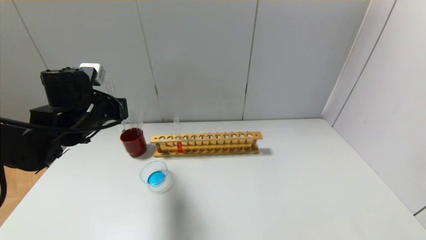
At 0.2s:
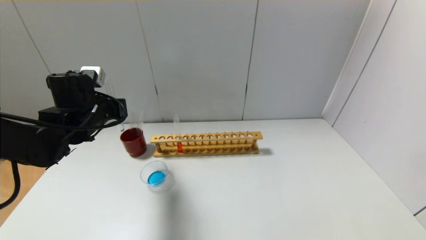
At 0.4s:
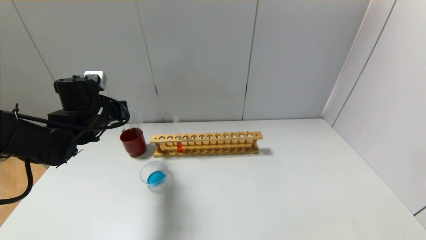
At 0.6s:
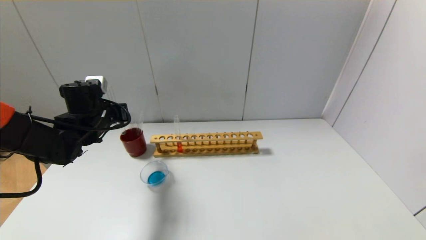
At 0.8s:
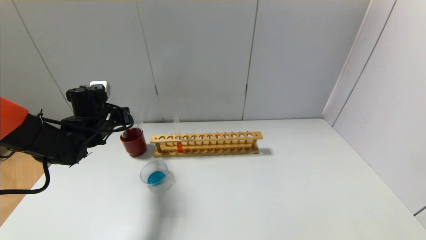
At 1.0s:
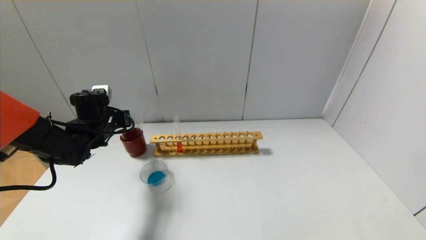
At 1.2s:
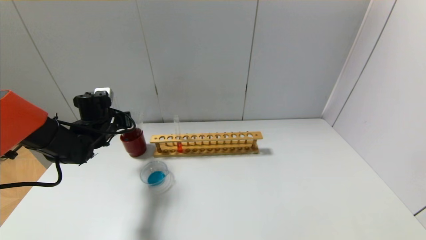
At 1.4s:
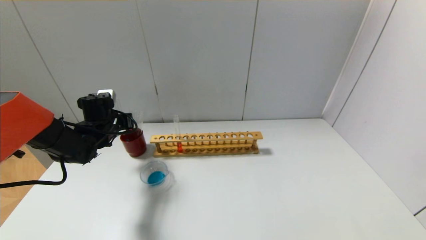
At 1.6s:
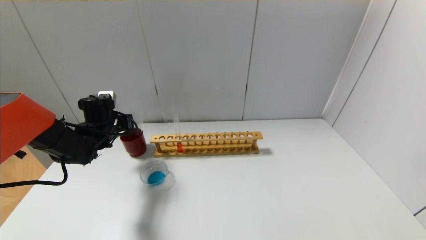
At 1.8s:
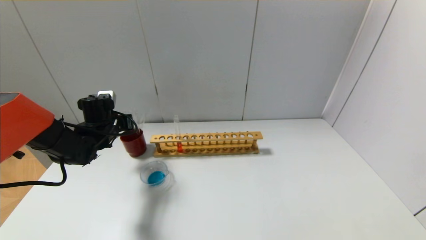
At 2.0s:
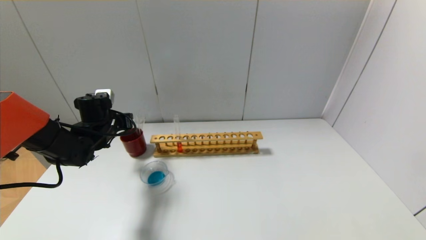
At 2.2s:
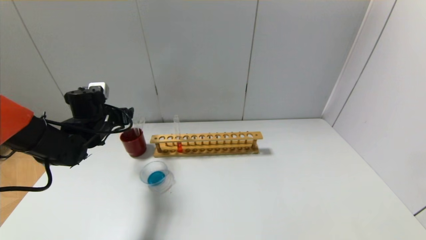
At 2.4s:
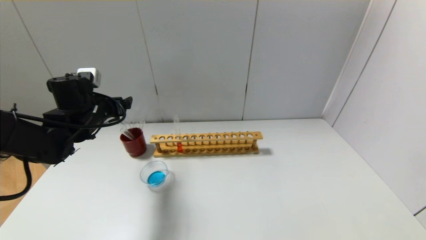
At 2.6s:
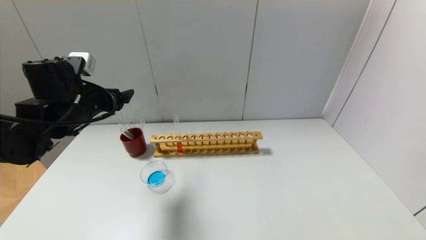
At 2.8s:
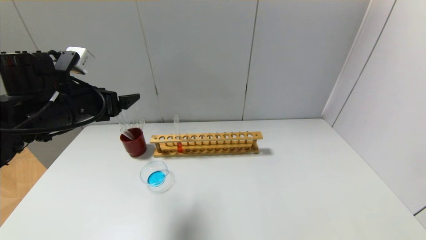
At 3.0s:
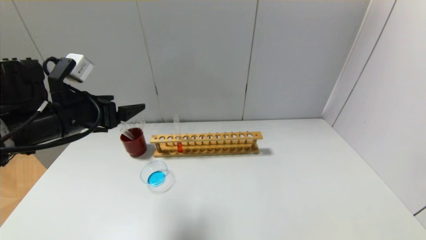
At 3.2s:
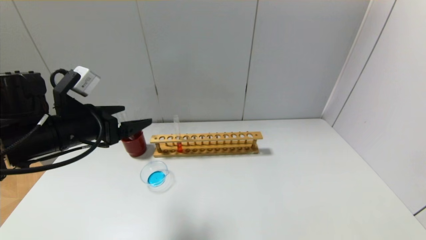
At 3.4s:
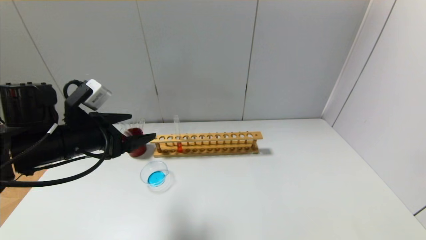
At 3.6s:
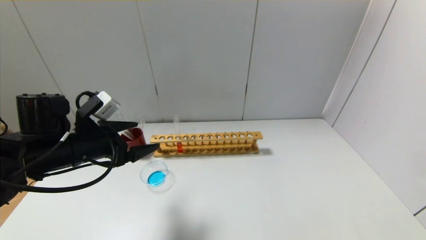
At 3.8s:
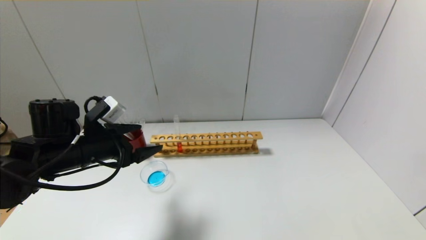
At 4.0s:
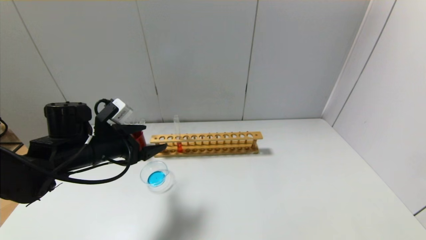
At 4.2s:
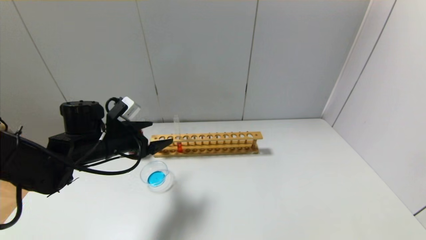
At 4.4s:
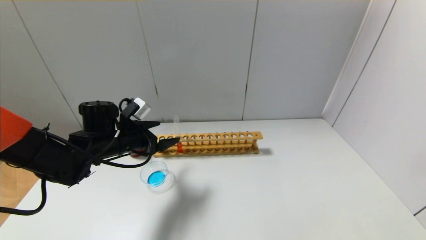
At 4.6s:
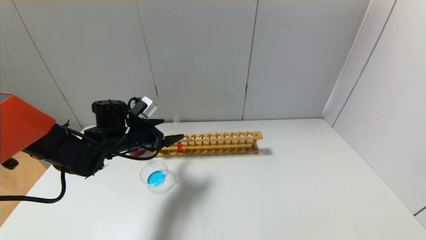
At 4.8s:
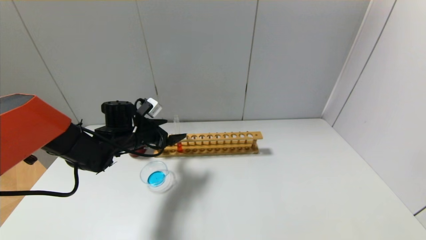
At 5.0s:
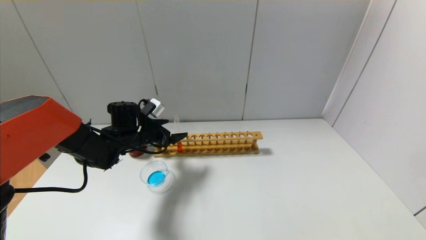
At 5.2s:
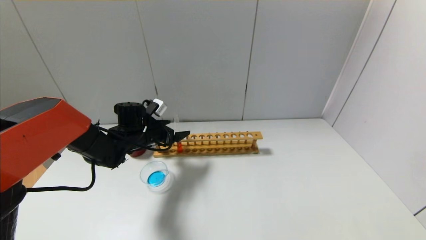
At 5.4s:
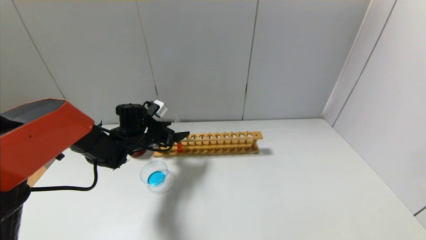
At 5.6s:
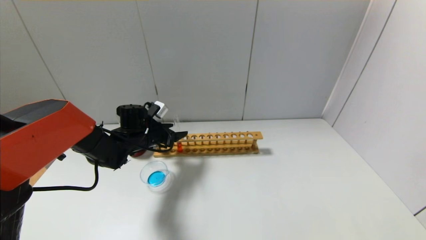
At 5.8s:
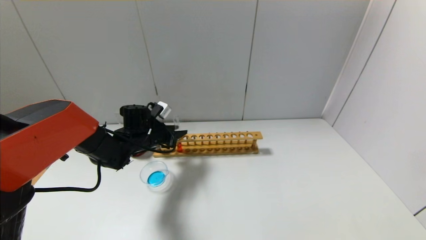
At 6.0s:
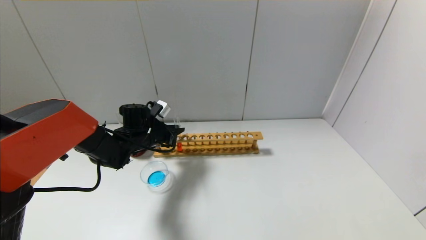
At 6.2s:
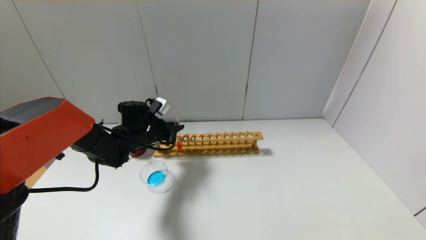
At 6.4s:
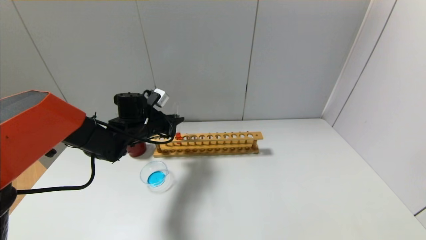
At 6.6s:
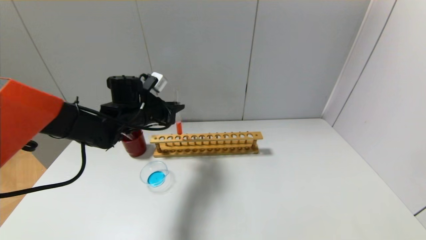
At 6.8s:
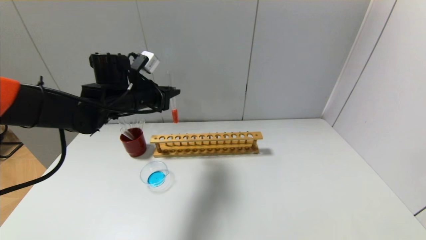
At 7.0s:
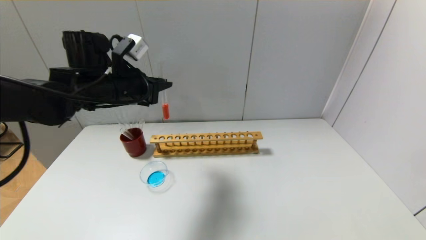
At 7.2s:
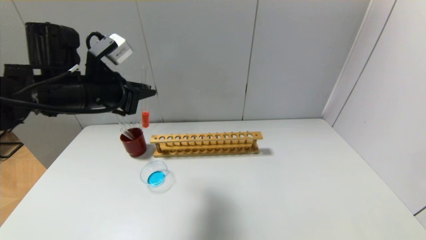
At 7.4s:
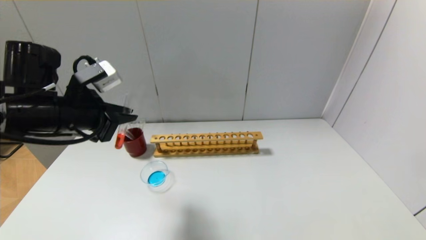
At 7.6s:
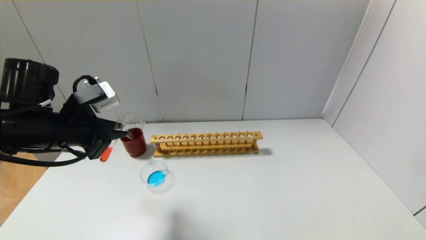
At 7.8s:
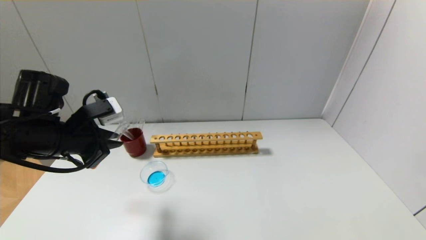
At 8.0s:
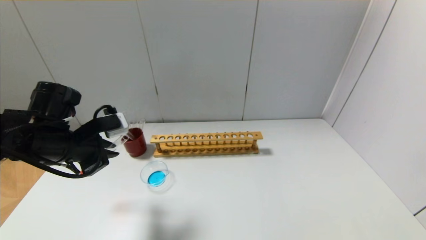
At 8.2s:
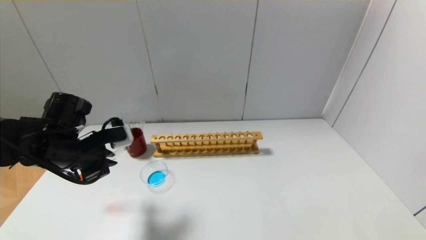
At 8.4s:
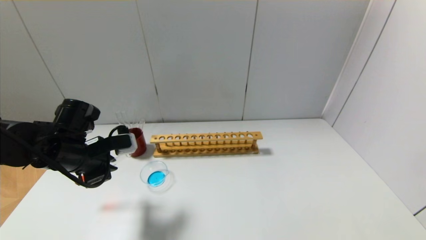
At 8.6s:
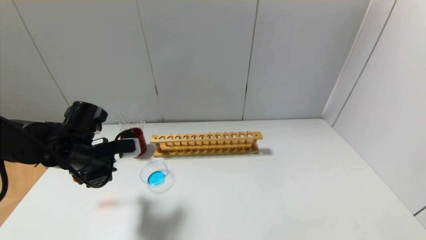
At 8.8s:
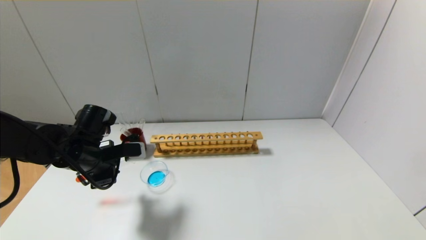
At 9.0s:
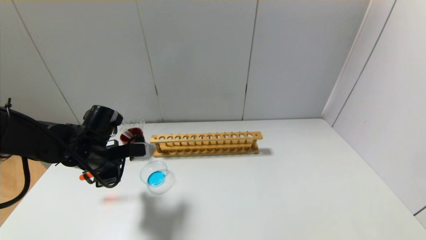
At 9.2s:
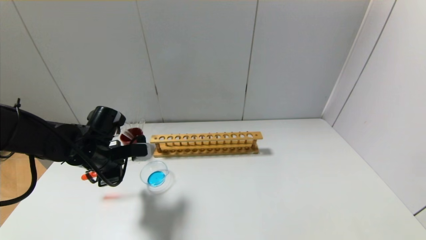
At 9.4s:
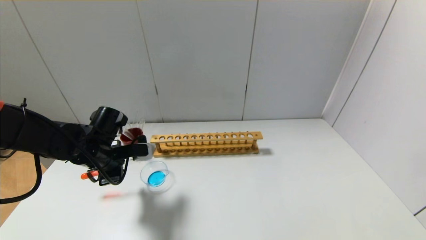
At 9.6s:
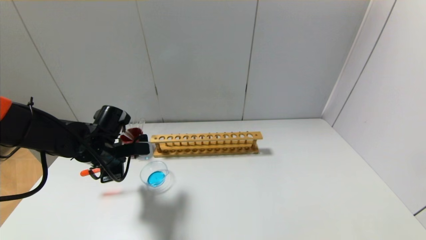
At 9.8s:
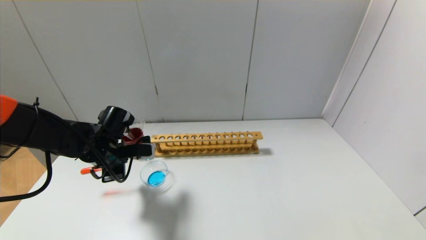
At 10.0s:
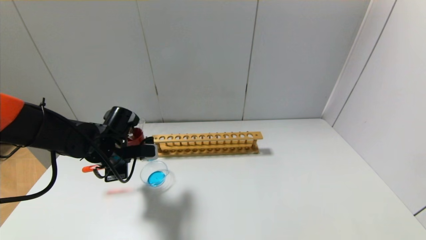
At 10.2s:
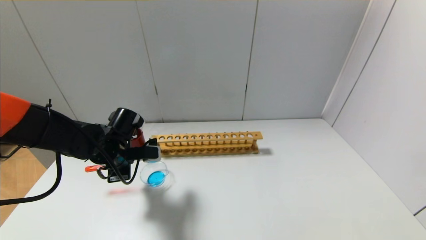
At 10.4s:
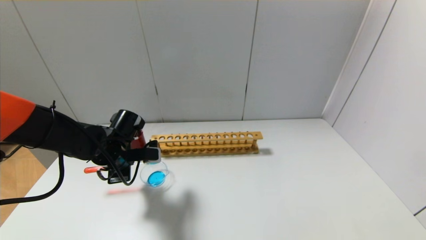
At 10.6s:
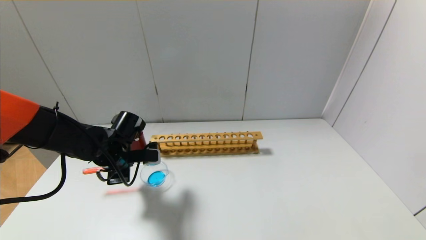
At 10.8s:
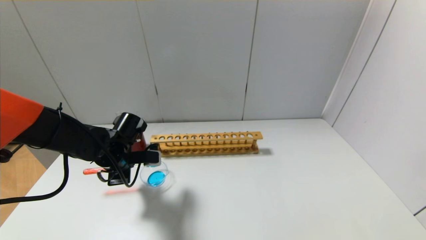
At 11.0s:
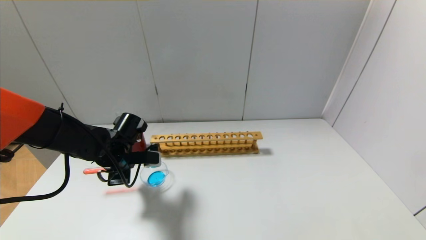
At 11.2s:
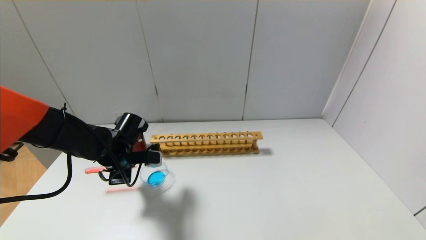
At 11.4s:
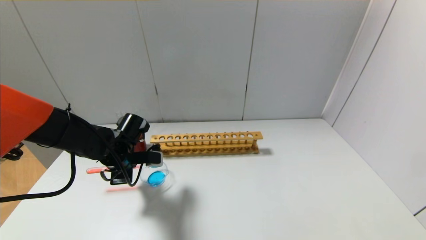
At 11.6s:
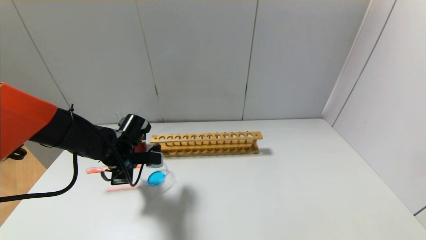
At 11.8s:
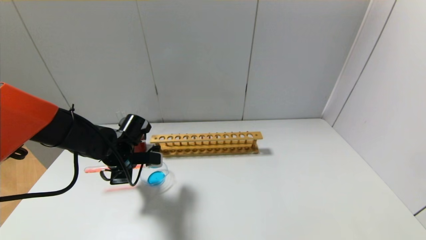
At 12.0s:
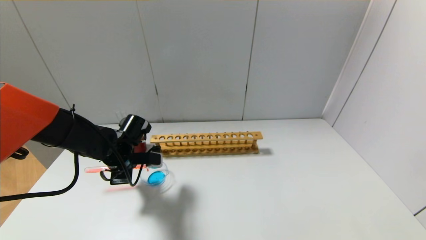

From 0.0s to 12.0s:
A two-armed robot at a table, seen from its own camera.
Step, from 0.0s to 1.8s: Place the test tube into the brown cup with the left gripper.
Step, from 2.0s to 6.0s: Grasp the red reagent with the left gripper.
From 0.0s to 1.6s: The left gripper is displaced downward and forward by approximately 10 cm.
From 1.6s to 3.0s: The left gripper travels backward and upward by approximately 20 cm, and opens.
From 3.0s to 4.4s: The left gripper goes approximately 15 cm downward and forward.
From 4.4s to 6.0s: The left gripper goes about 5 cm forward, and closes up.
From 6.0s to 7.6s: The left gripper goes about 20 cm backward, upward and to the left.
From 7.6s to 9.0s: The left gripper is displaced downward and forward by approximately 10 cm.
From 9.0s to 12.0s: The grippers stay close to where they were, moving slightly.

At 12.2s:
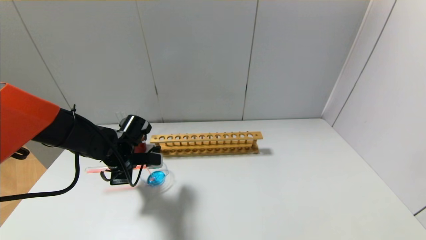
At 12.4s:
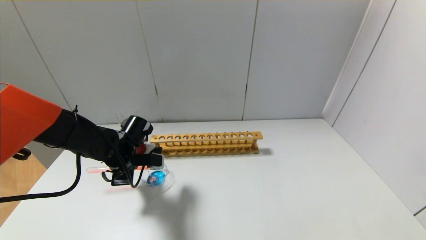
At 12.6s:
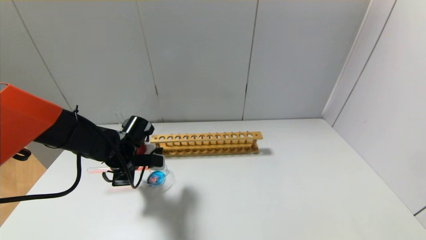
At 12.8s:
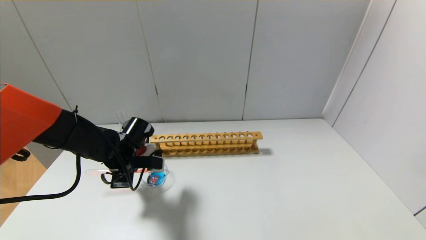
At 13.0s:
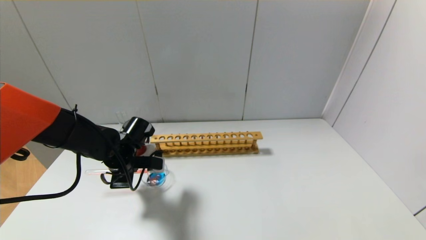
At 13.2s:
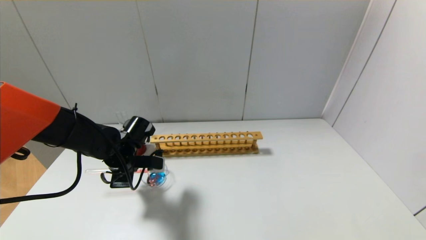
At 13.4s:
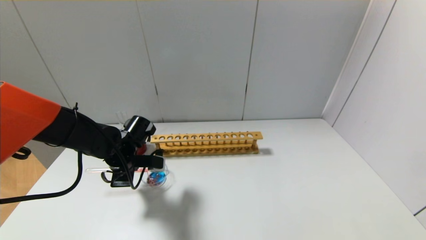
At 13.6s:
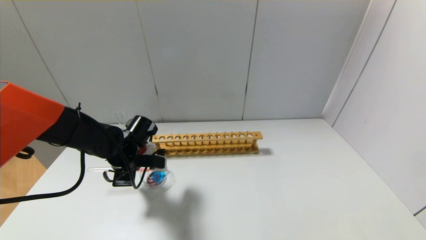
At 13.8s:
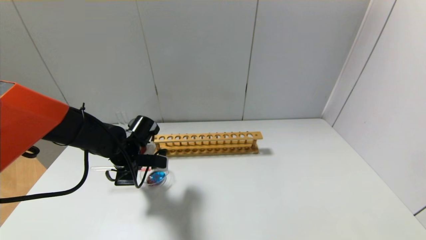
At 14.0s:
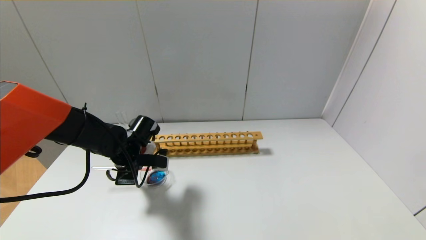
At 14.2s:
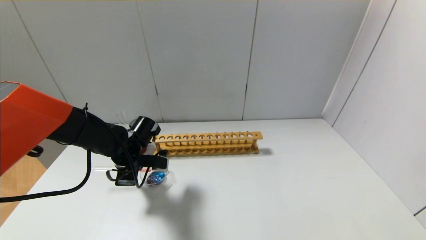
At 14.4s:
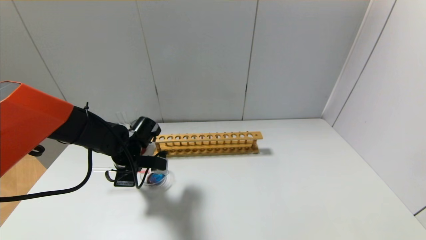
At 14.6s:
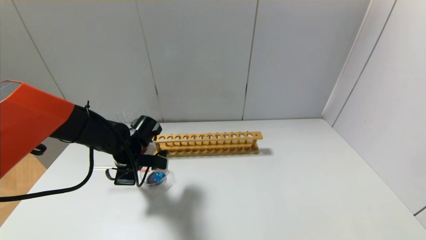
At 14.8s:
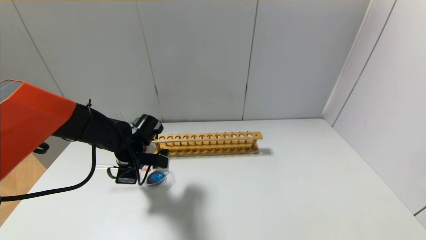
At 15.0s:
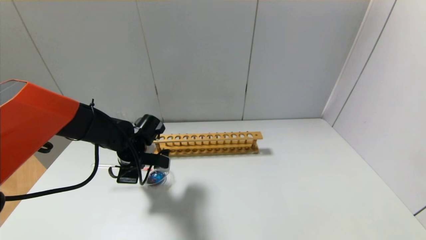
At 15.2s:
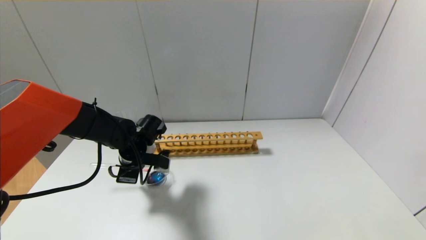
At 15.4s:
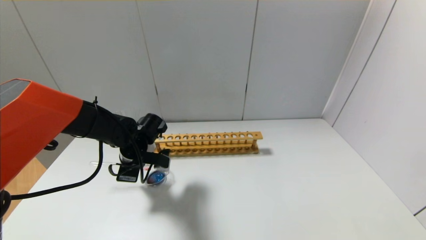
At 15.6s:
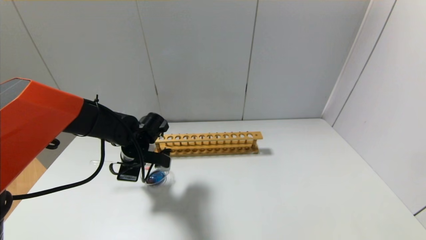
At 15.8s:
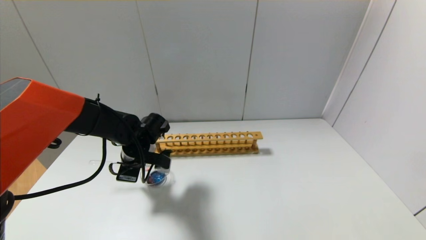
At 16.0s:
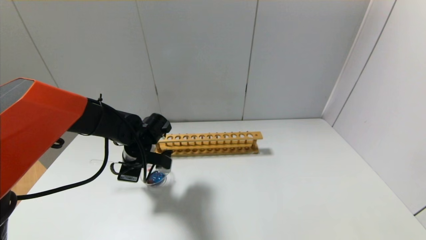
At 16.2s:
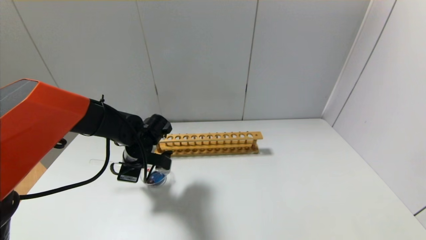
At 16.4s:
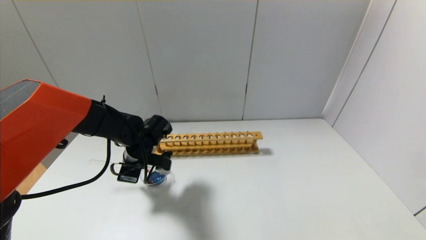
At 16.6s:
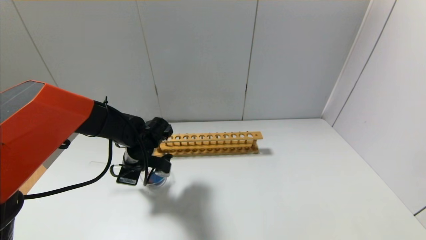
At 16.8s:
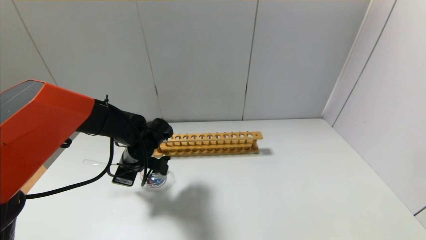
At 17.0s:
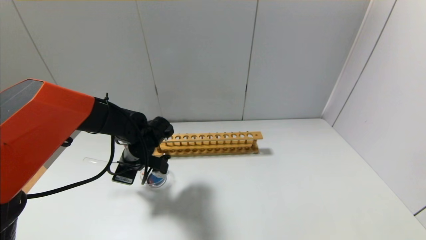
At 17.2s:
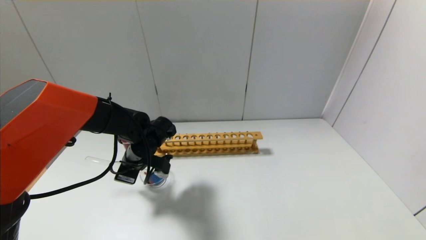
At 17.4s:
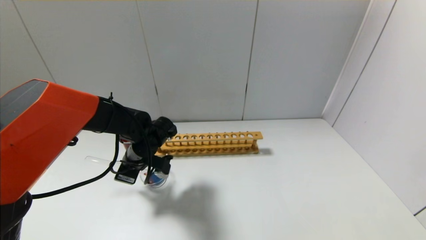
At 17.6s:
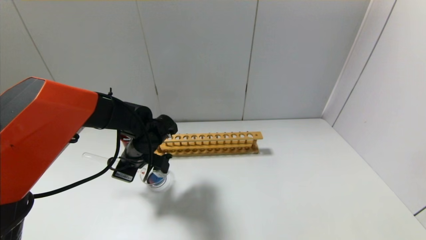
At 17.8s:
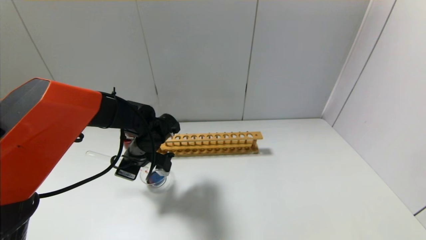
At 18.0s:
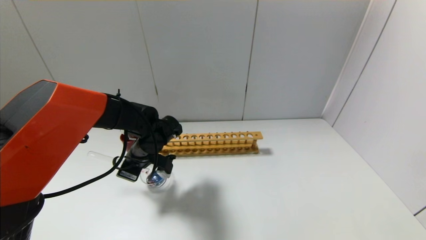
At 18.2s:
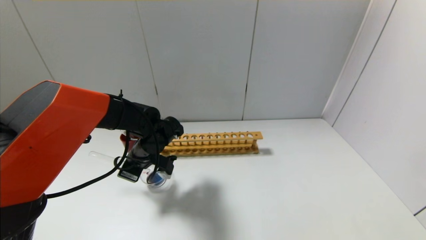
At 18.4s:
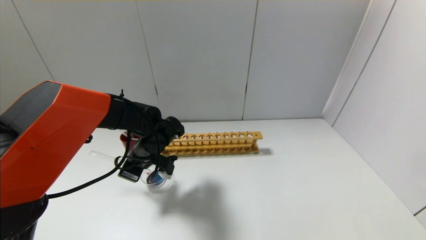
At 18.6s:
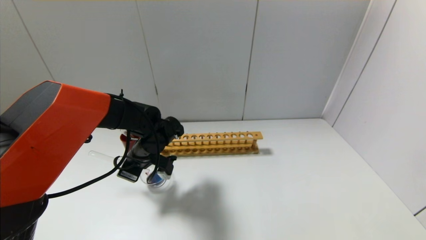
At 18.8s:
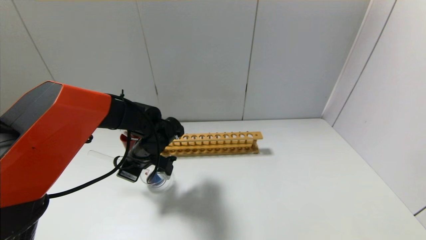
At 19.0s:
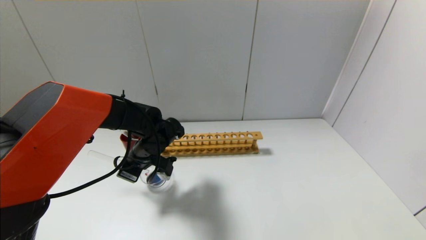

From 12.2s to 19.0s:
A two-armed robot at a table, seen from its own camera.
From 12.2s to 13.6s: The two grippers keep their place.
From 13.6s to 16.2s: The grippers make only small movements.
From 16.2s to 19.0s: The grippers make only small movements.
